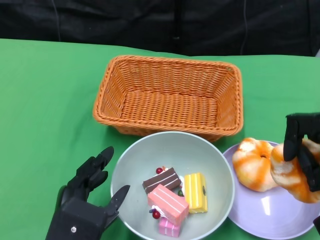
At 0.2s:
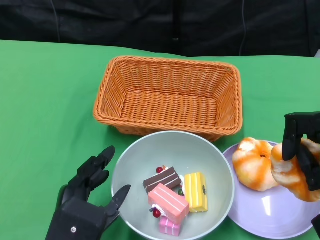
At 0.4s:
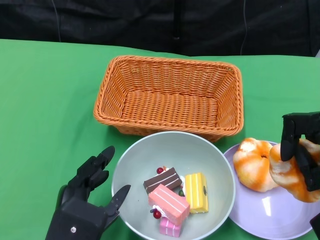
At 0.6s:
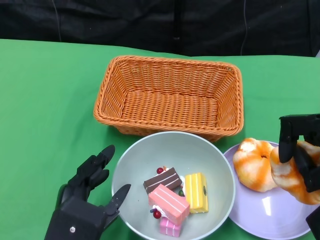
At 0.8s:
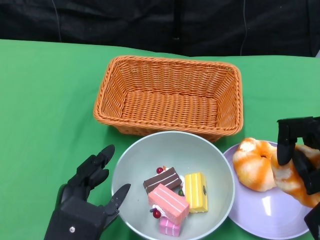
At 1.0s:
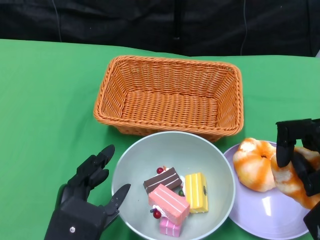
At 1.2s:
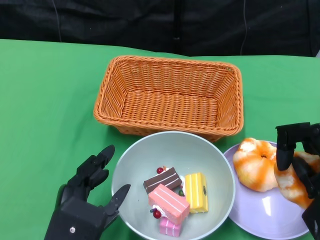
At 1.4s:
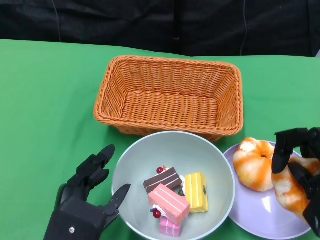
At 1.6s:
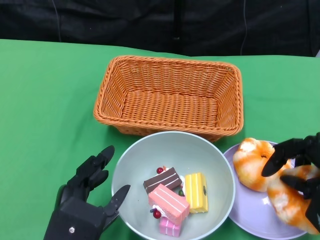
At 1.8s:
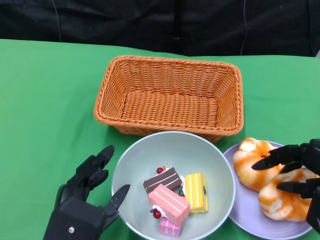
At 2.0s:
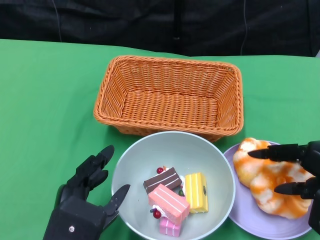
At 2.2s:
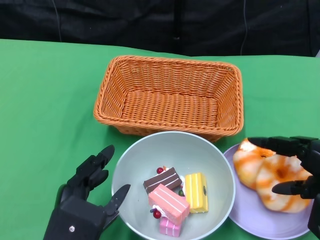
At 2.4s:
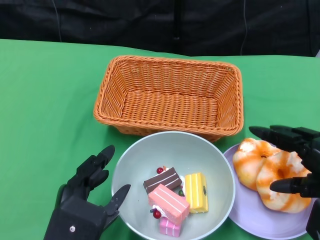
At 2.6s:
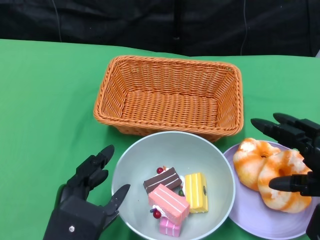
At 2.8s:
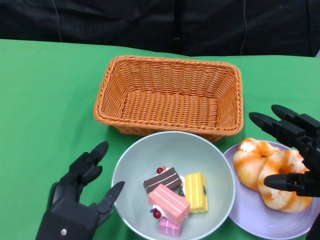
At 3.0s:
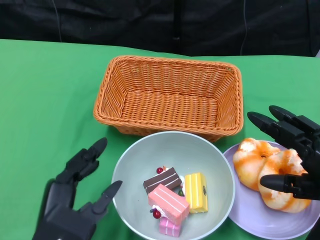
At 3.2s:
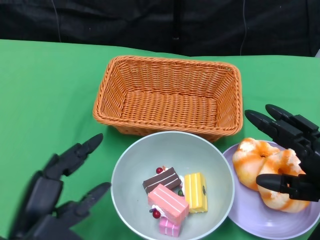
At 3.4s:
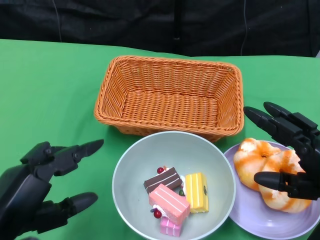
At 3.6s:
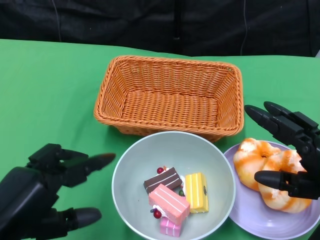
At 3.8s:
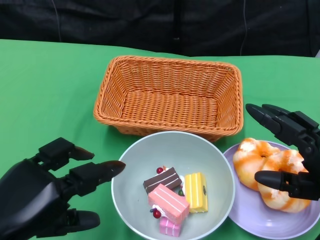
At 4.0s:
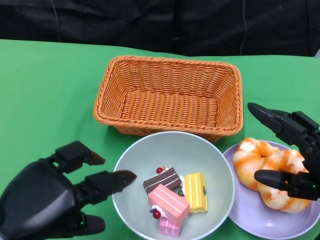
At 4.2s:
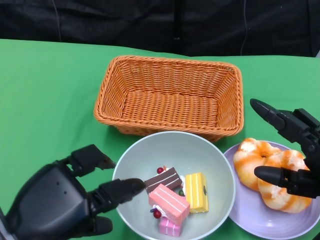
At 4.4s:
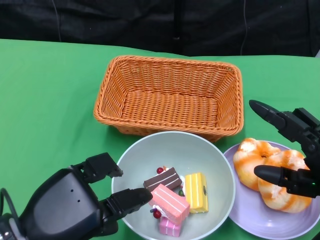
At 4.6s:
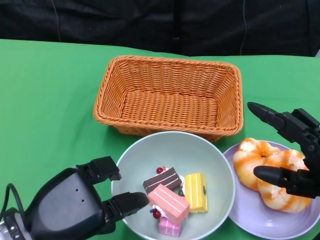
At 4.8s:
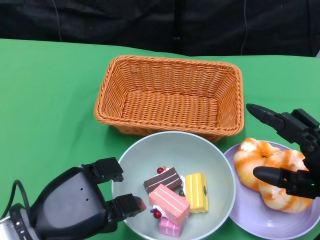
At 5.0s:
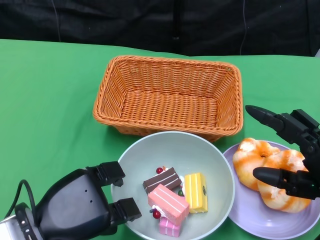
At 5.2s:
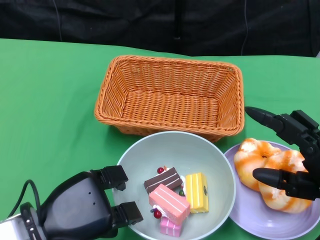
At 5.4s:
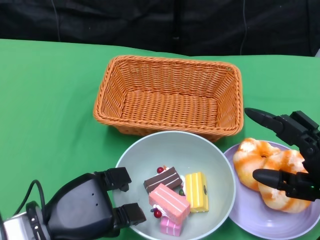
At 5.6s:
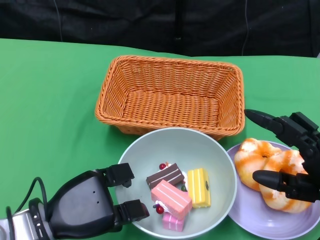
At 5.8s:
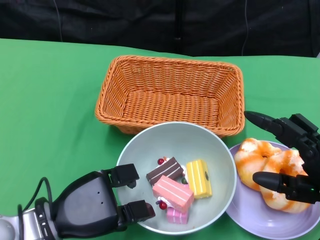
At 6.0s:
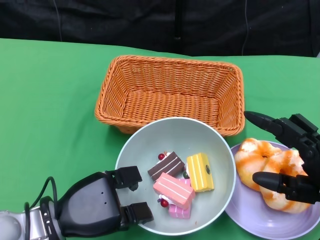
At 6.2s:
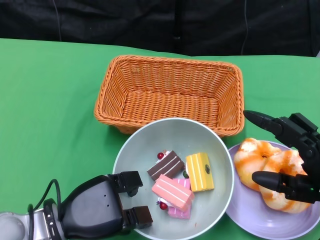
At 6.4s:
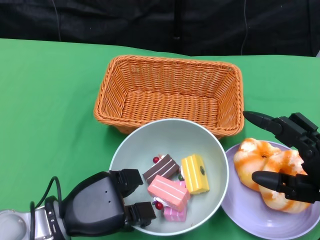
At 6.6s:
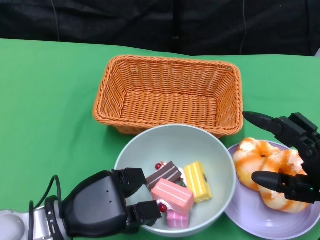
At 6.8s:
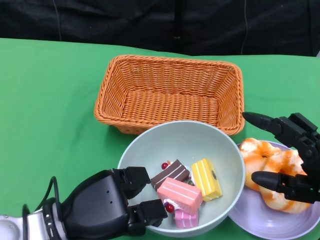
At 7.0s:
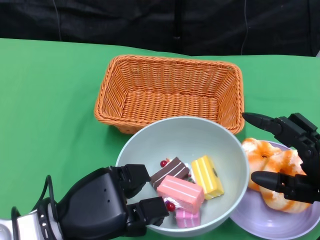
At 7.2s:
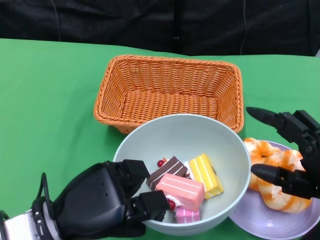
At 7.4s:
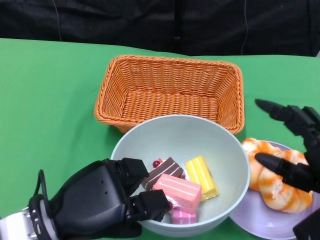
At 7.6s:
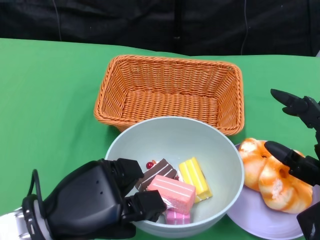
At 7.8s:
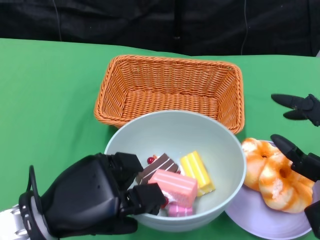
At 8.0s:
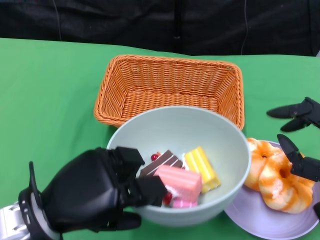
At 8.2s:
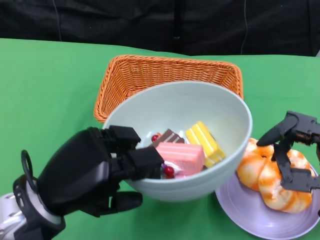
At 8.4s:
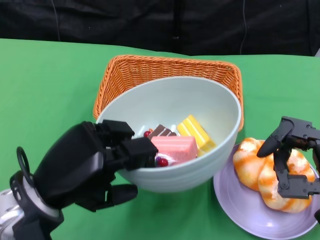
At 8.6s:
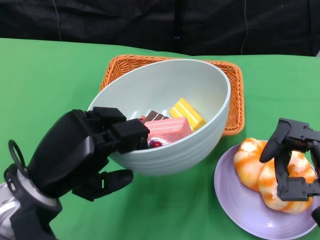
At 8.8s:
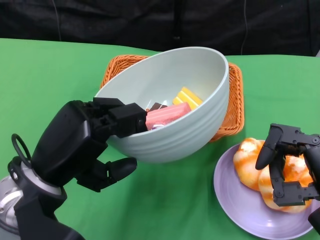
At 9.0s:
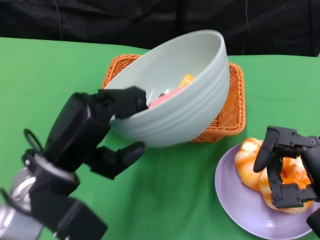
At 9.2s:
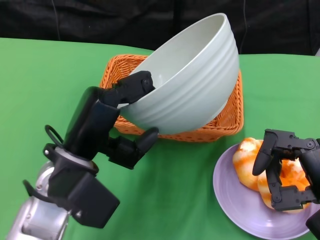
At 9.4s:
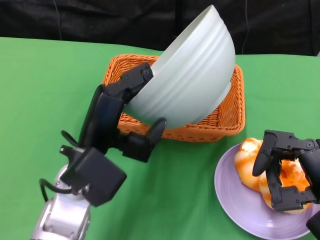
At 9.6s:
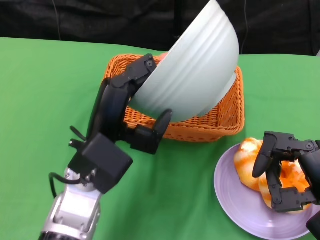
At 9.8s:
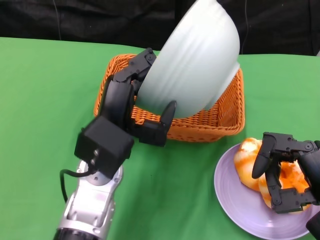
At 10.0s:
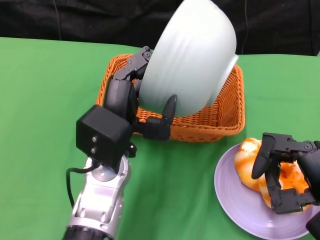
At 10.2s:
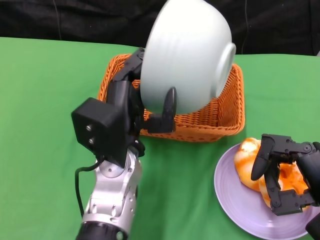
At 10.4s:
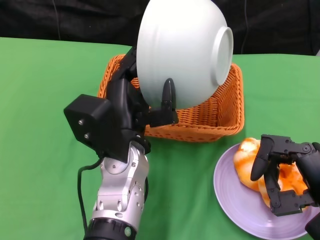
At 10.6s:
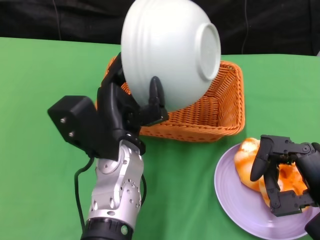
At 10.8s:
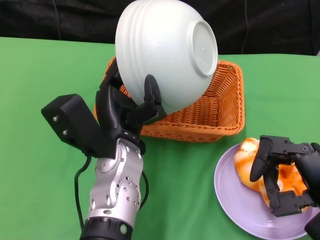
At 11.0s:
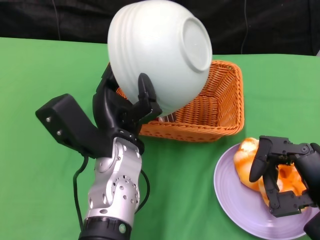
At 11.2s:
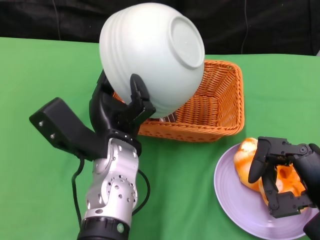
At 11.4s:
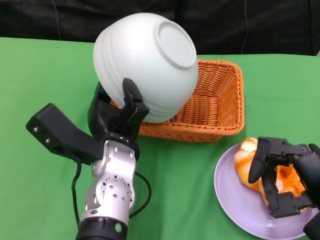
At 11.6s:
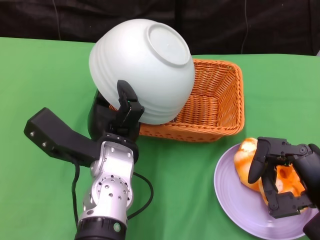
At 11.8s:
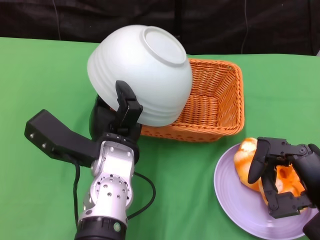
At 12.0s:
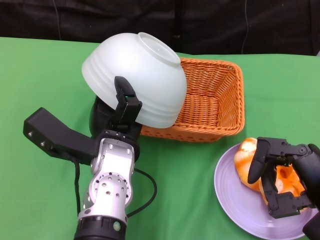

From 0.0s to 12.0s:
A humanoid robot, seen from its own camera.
Step, from 0.0s to 2.8s: Pick up the bread with the right gripper and place it on the plate.
Step, from 3.0s to 6.2s: Grasp the bowl with the left gripper.
From 1.6s to 3.0s: There are only small adjustments of the hands.
From 4.4s to 6.0s: The left hand shifts roughly 10 cm downward and forward.
From 6.0s to 7.6s: The left hand moves upward, roughly 5 cm.
From 7.6s to 9.0s: The left hand changes place by roughly 5 cm.
From 9.0s to 10.4s: The left hand goes approximately 10 cm to the right.

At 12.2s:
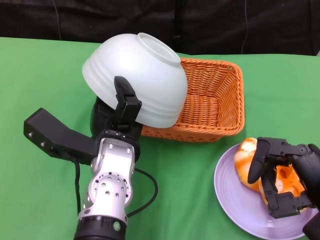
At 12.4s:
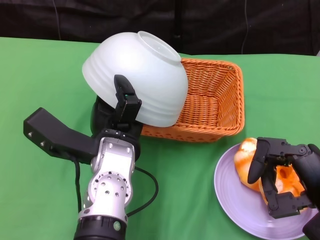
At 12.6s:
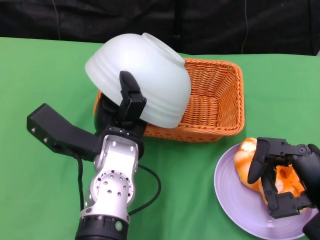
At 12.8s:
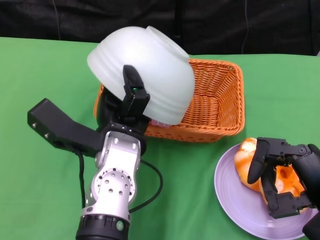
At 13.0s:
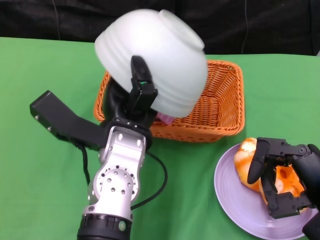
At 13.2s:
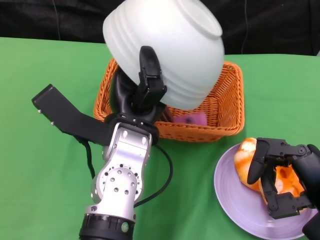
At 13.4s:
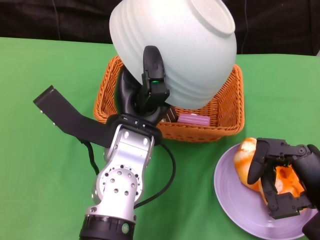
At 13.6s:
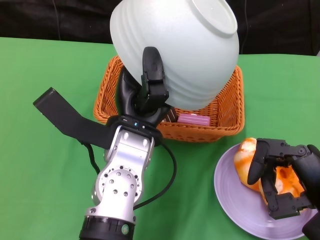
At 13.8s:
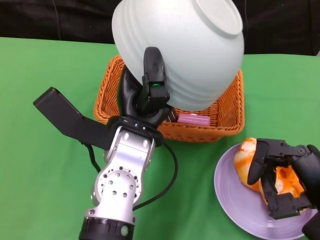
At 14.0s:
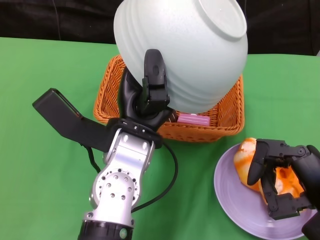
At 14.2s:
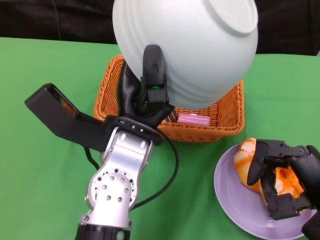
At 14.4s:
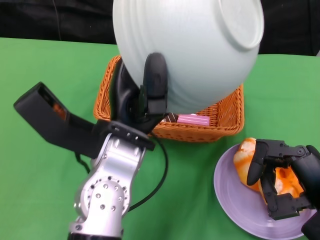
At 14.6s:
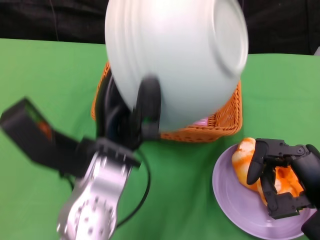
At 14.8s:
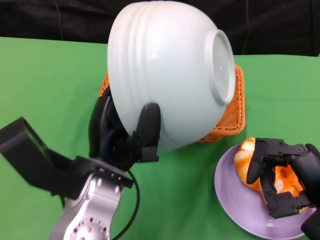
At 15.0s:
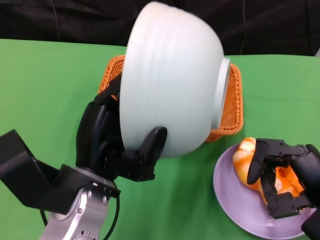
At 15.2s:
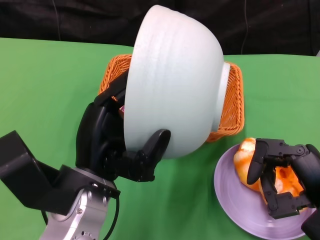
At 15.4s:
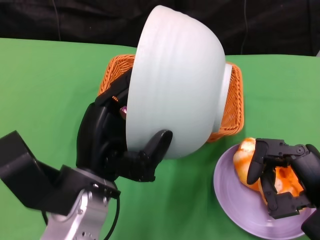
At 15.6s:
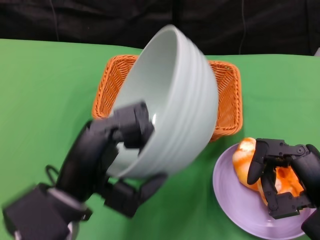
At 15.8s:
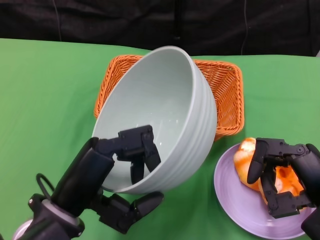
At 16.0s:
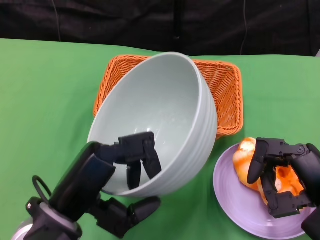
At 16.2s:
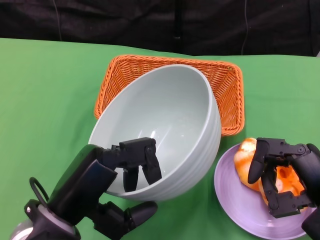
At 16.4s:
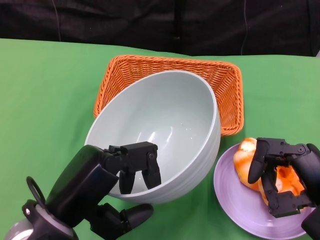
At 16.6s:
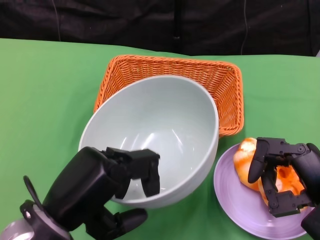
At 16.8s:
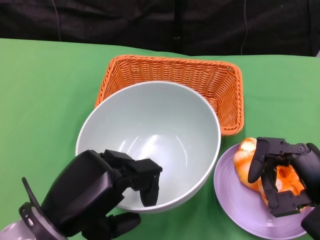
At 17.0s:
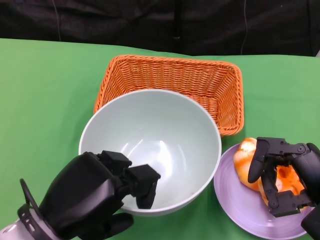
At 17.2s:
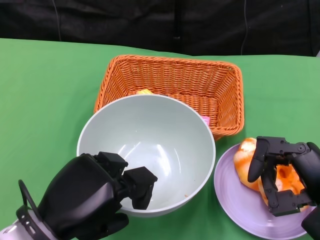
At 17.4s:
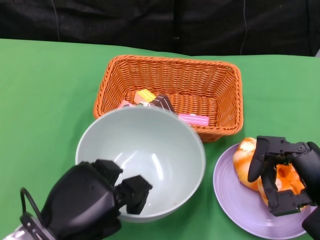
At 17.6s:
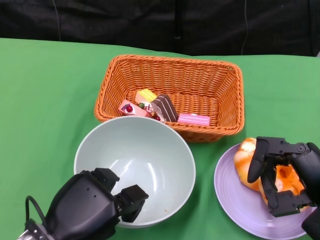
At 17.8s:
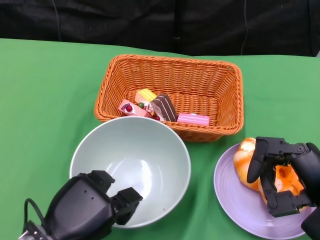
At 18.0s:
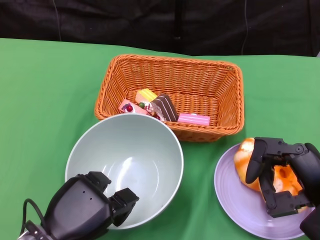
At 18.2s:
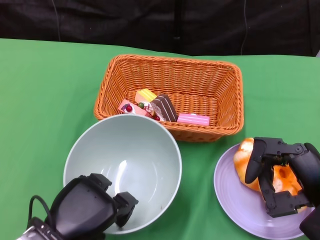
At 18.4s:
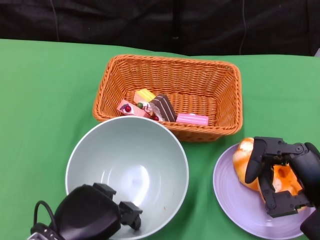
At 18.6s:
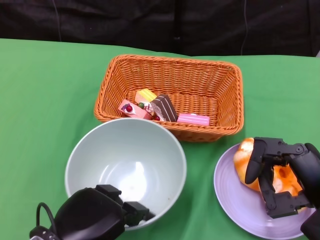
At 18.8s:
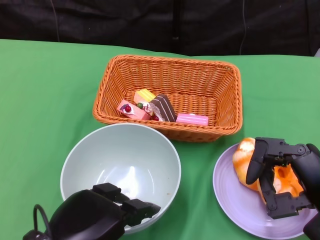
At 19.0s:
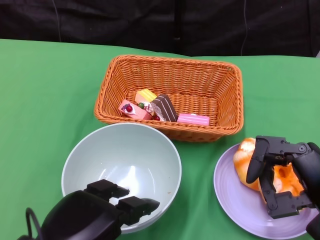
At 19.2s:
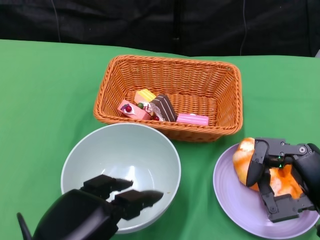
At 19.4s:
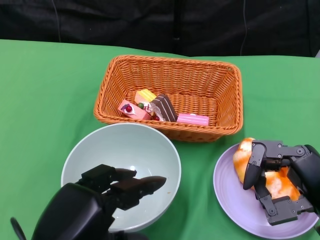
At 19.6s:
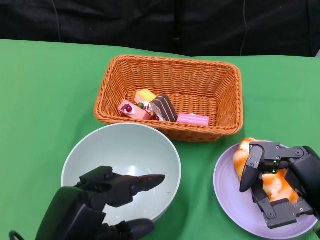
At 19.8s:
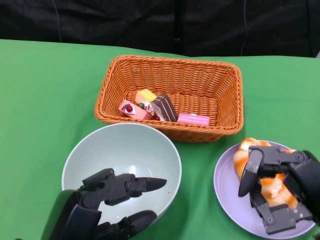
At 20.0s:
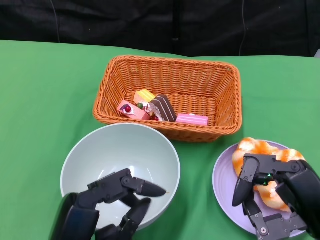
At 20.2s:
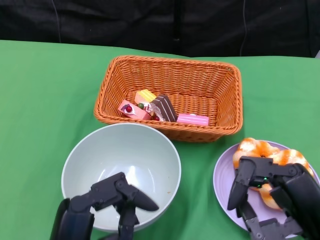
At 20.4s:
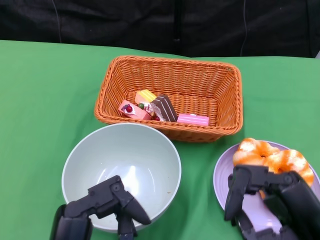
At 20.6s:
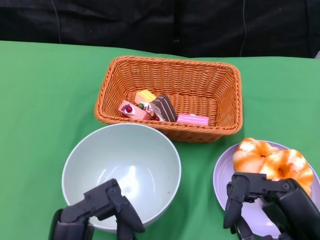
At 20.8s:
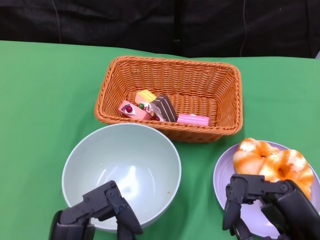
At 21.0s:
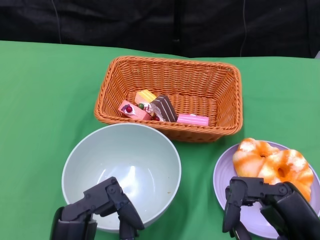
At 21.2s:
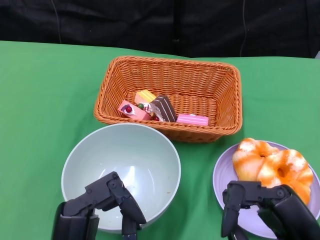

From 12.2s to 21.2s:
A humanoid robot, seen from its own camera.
Step, from 13.8s to 19.4s: Place the bowl on the table with the left gripper.
From 13.8s to 15.2s: The left hand travels to the left and backward by approximately 10 cm.
From 15.2s to 16.6s: The left hand shifts by roughly 5 cm.
From 16.6s to 18.2s: The left hand heads downward, covering roughly 10 cm.
From 18.2s to 19.8s: The left hand moves backward and upward, approximately 10 cm.

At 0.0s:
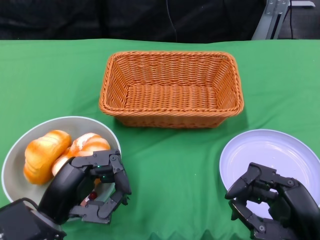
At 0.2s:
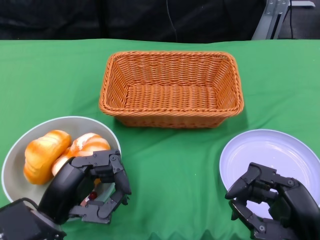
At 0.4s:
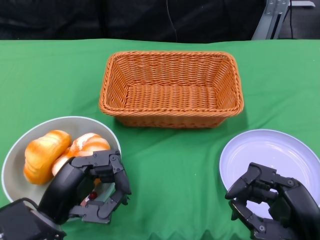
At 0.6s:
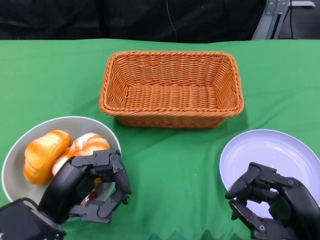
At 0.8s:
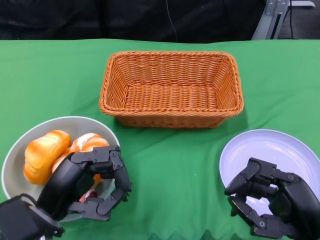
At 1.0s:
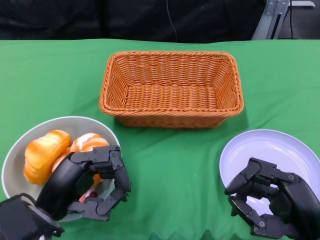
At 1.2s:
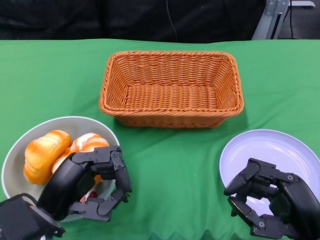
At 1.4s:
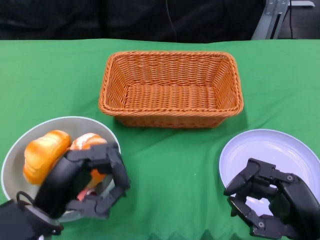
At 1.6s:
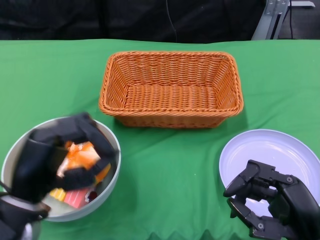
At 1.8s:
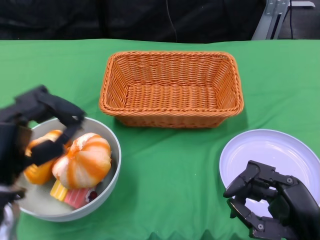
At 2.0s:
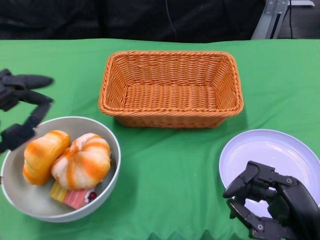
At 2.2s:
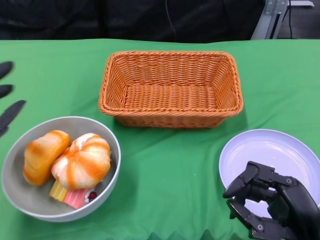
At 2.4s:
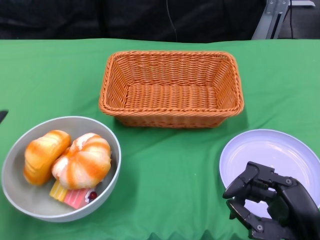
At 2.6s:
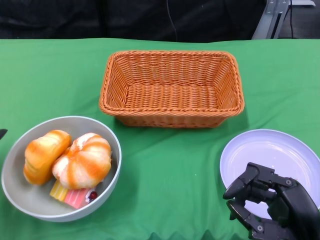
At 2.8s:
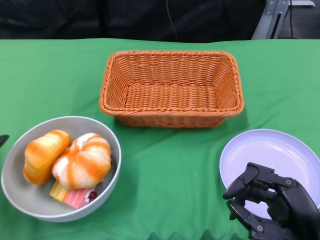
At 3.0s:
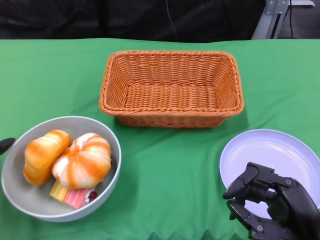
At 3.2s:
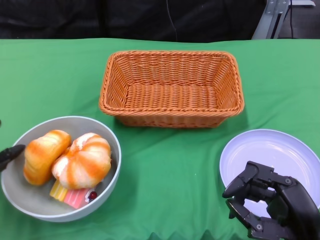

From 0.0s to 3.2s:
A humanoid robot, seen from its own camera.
From 1.6s to 3.2s: The left hand moves to the left and forward, some 10 cm.
